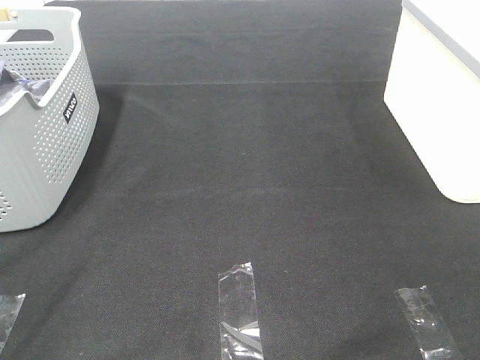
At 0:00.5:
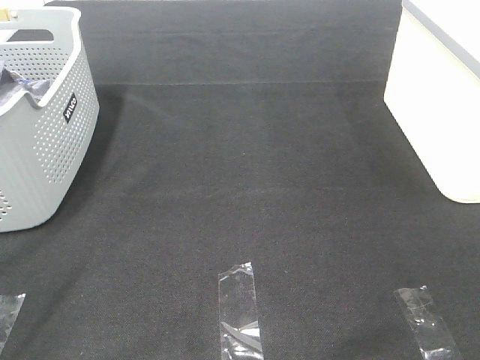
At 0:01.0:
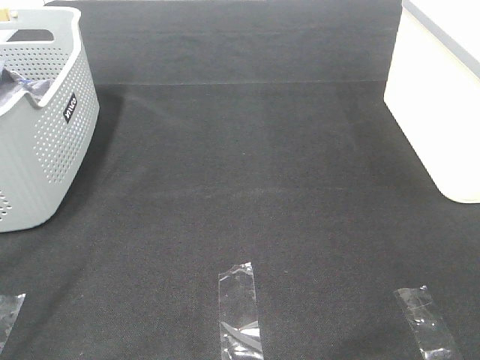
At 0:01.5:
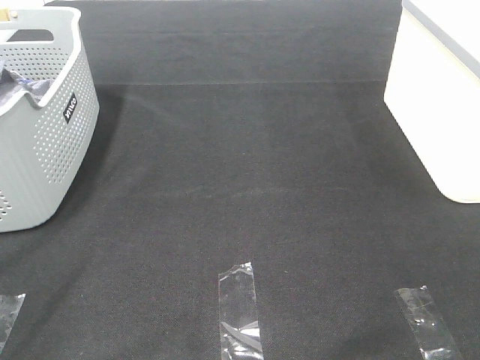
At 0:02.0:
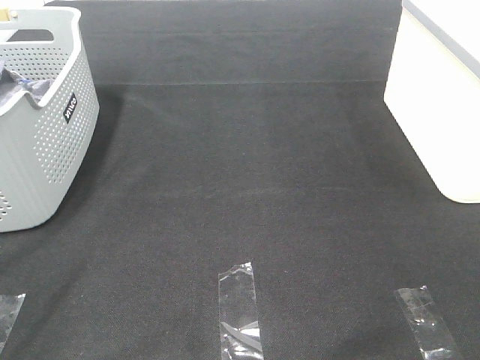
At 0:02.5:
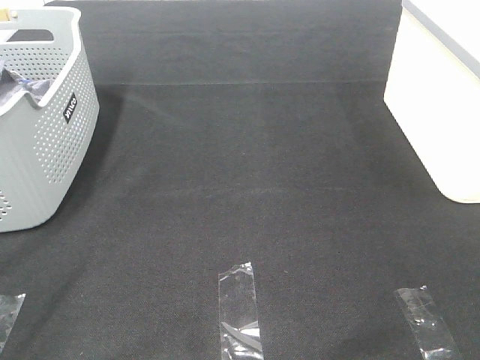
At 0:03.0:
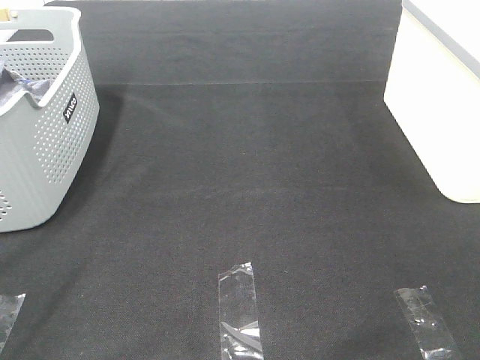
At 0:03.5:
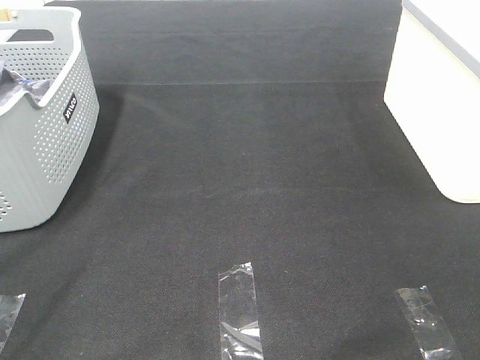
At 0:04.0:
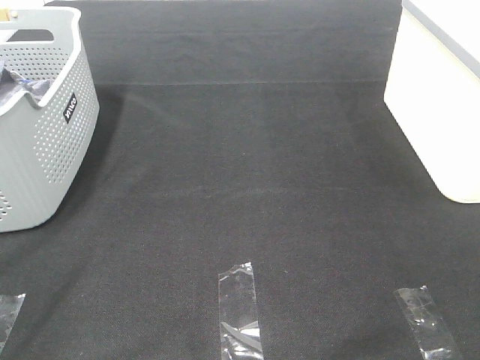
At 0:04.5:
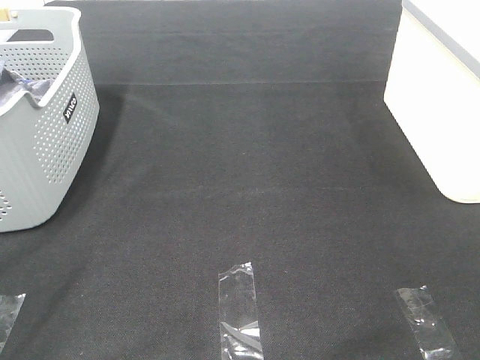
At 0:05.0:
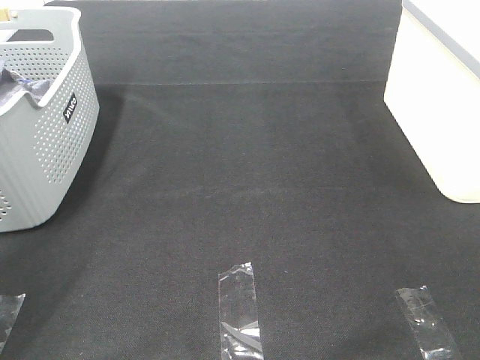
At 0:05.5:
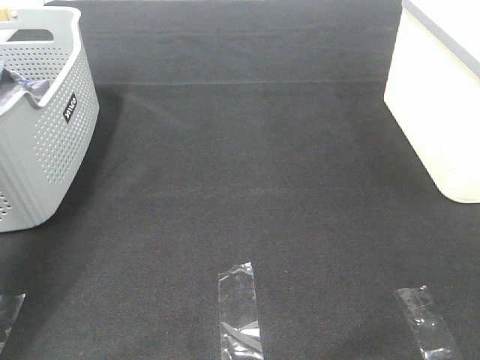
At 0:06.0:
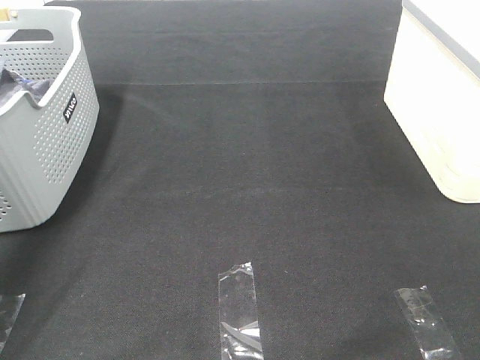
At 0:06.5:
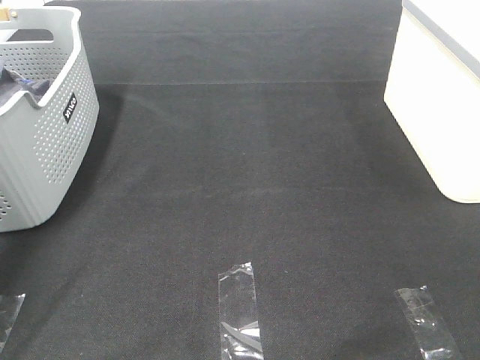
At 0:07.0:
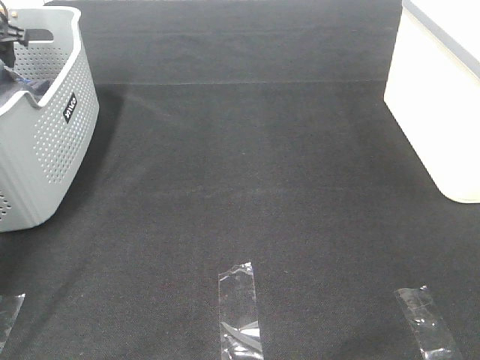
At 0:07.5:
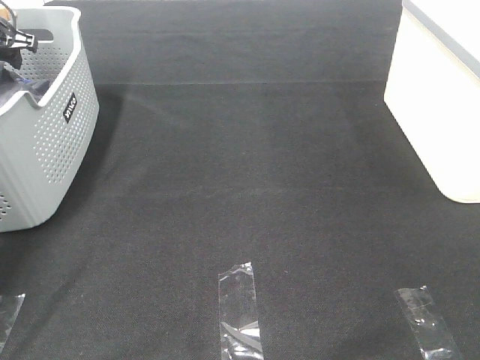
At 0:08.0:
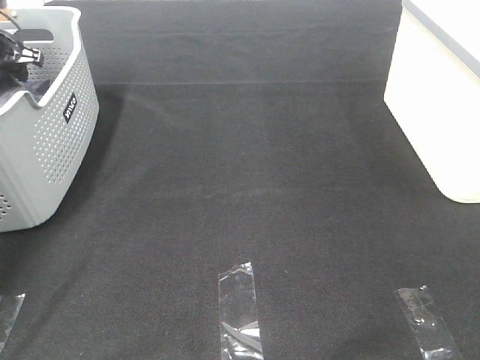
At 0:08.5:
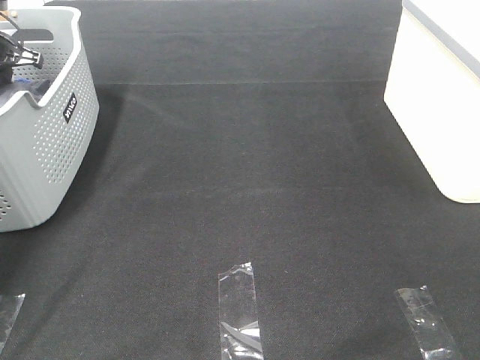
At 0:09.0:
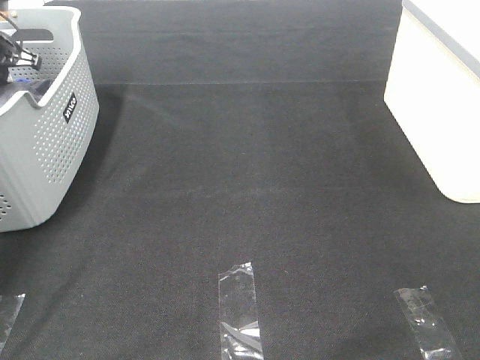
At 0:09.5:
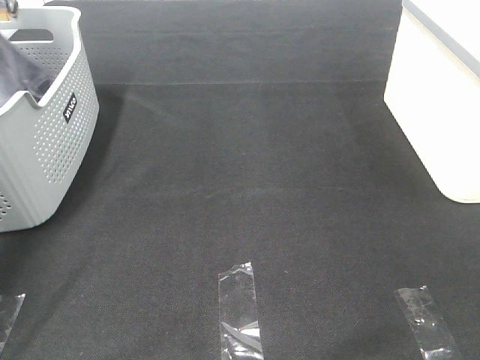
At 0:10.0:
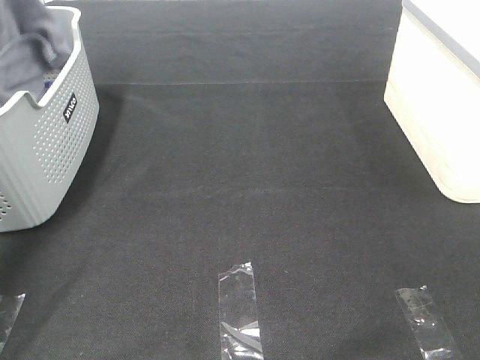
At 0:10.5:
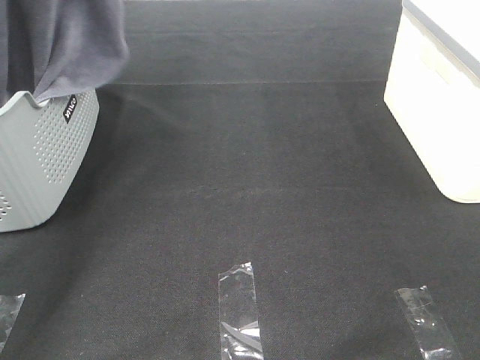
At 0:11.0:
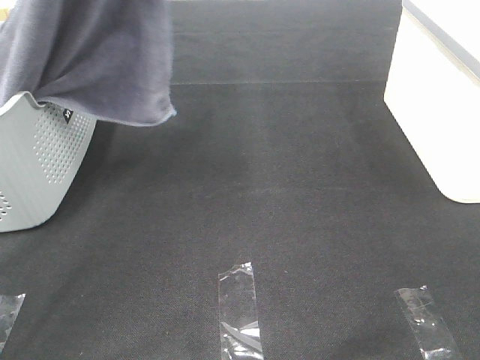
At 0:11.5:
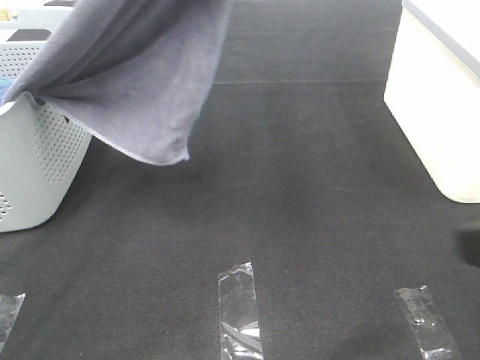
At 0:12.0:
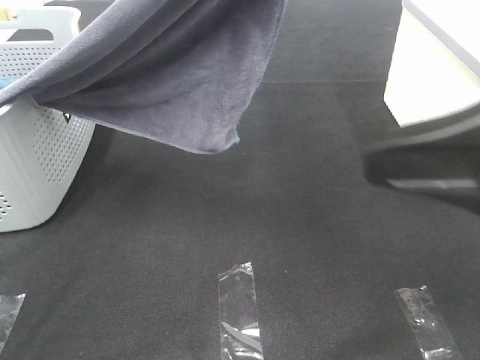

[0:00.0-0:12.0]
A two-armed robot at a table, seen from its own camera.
Task of the whole recording: Remove the towel and place it.
0:00.0 to 0:04.0: Both grippers stay about where they are.
0:04.0 to 0:06.0: The left gripper shifts some 40 cm forward.
0:06.0 to 0:08.0: The left gripper is displaced downward and forward by about 25 cm.
0:08.0 to 0:10.0: The left gripper moves upward, roughly 20 cm, and closes up.
0:10.0 to 0:12.0: The right gripper moves forward, roughly 15 cm. Meanwhile the left gripper shifts roughly 35 cm to the right and backward.

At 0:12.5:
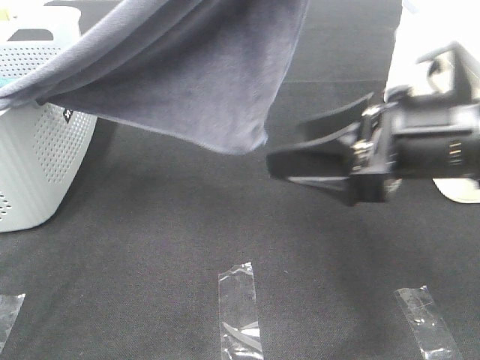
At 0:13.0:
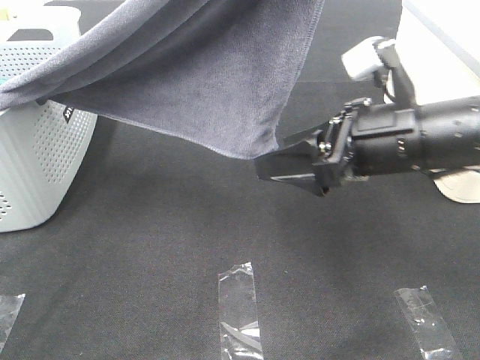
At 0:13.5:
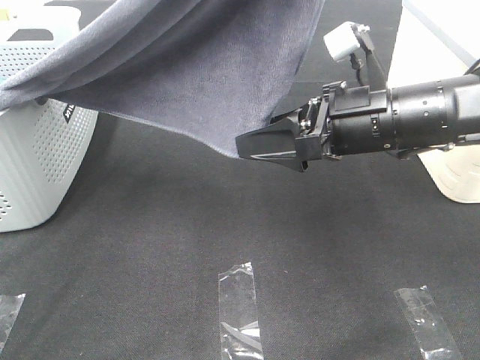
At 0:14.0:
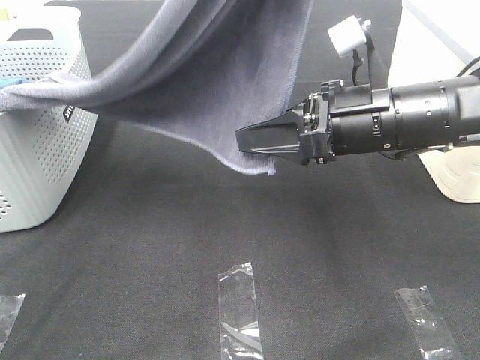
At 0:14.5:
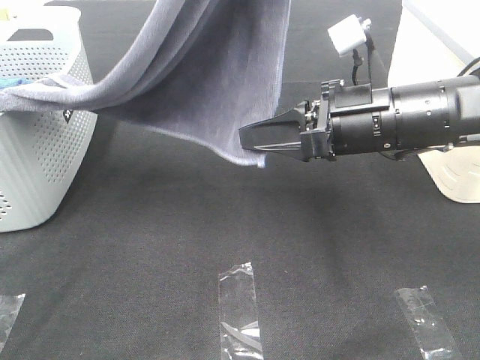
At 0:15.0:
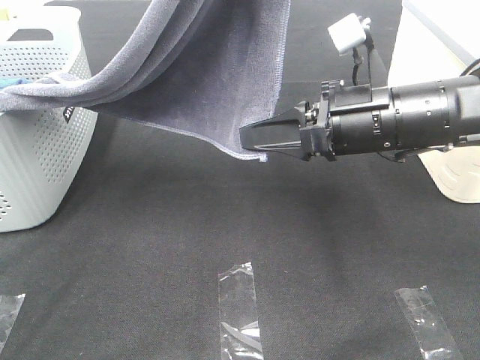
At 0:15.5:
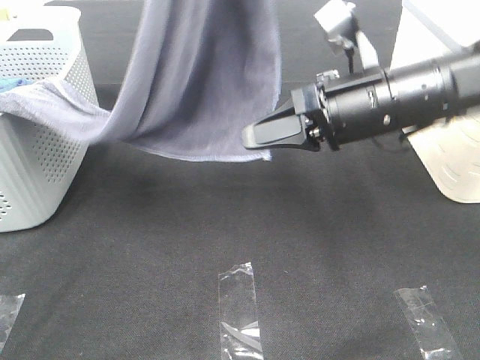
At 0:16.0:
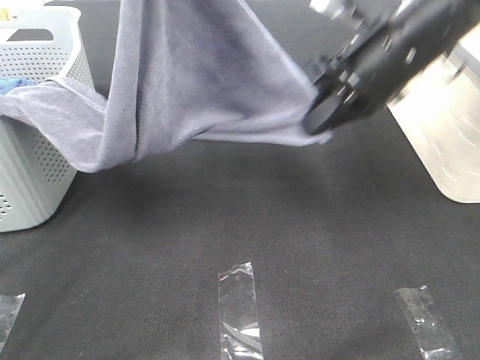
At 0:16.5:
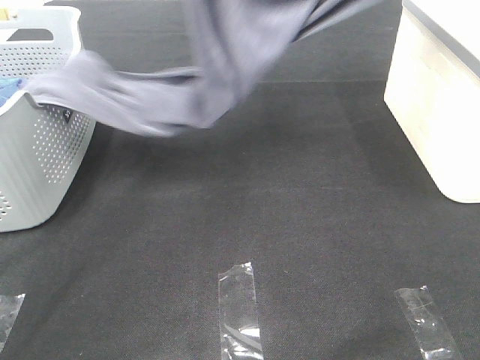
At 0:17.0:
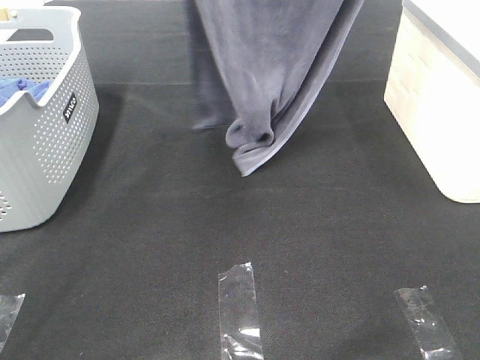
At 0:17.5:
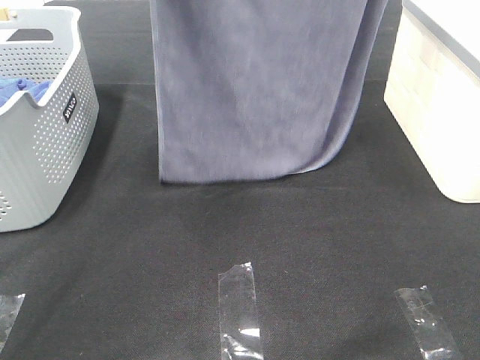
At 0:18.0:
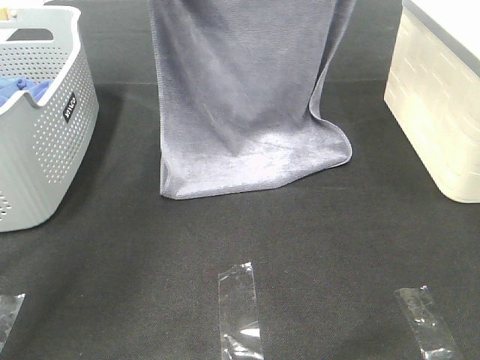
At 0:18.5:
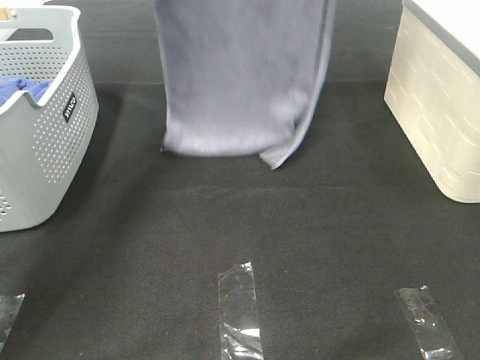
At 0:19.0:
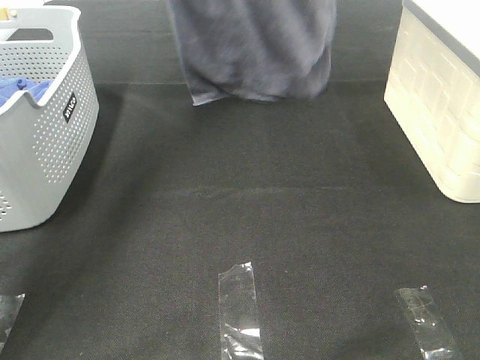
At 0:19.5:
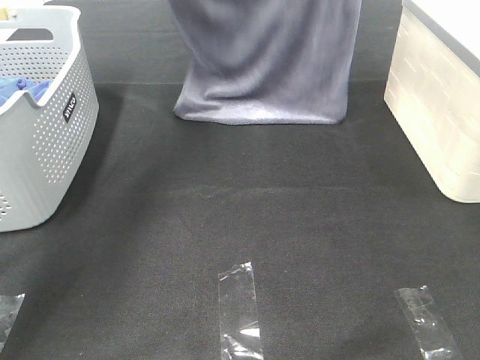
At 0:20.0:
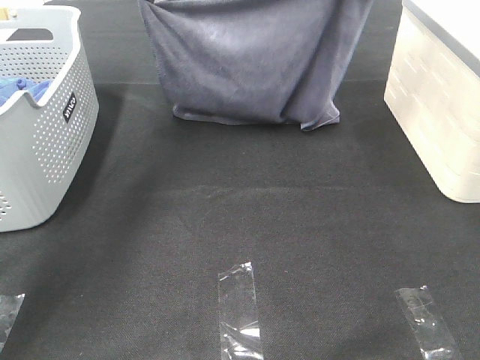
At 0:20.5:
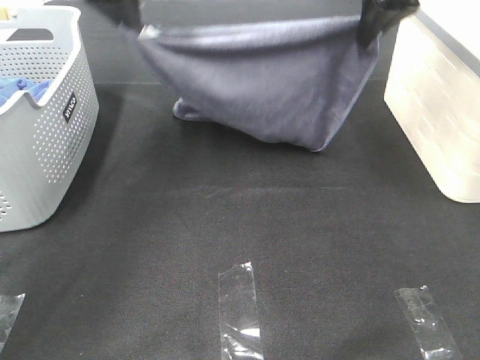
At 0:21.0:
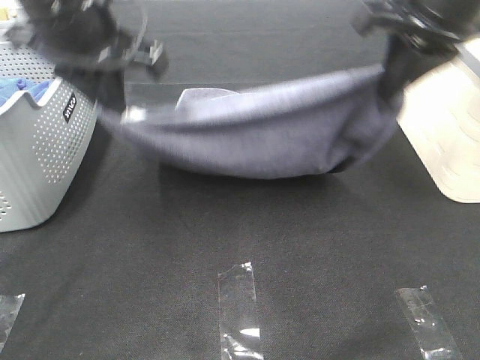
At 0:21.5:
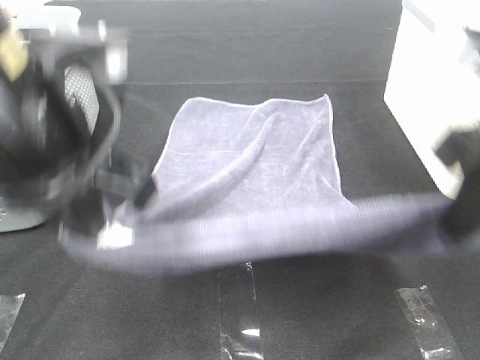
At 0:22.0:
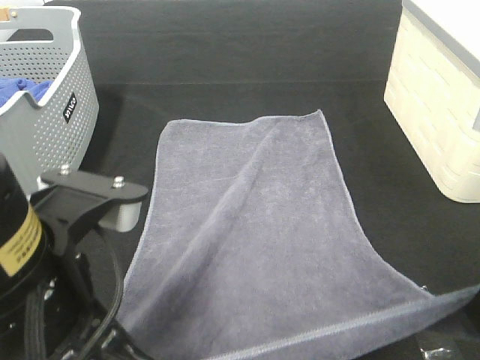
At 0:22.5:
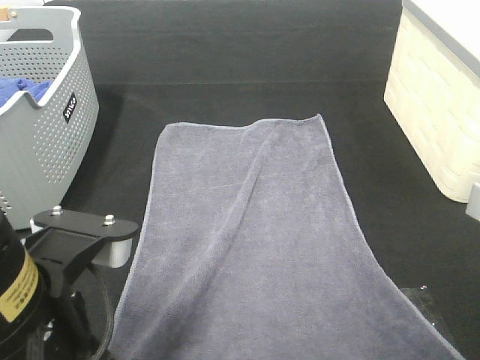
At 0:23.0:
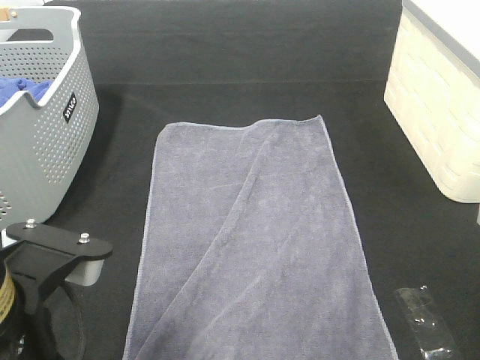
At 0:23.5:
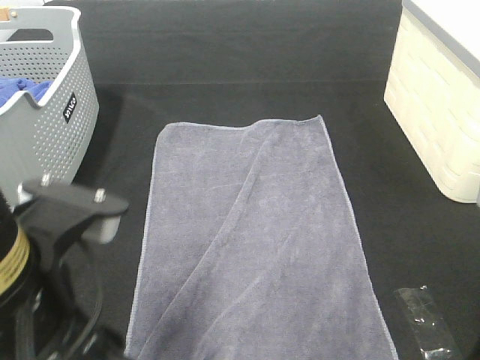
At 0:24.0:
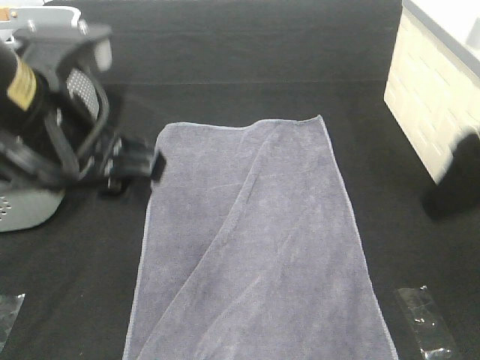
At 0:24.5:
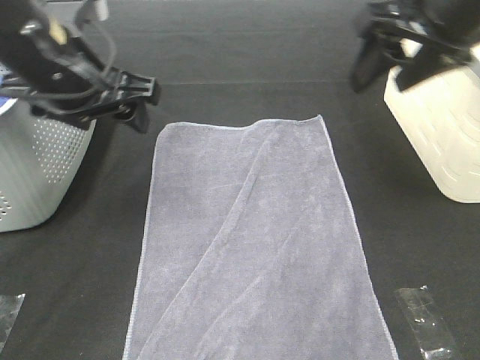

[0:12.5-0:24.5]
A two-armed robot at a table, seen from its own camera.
Task of the whole recording: Remove the towel and place it.
Step, 0:14.0 to 0:18.5: Left hand: spread the grey towel flat on the table.
Step, 0:14.0 to 0:18.5: Right hand: spread the grey towel flat on the table.
0:12.5 to 0:14.5: The right gripper travels forward by some 5 cm, and closes.
0:14.5 to 0:16.5: The right gripper shifts approximately 25 cm upward and forward. Meanwhile the left gripper is displaced forward by approximately 10 cm.
0:16.5 to 0:18.5: The right gripper moves up and down over about 15 cm, changing direction 2 times. Meanwhile the left gripper moves up and down over some 15 cm, changing direction 2 times.
0:18.5 to 0:20.5: Both grippers move downward and backward, approximately 15 cm.
0:20.5 to 0:22.5: The grippers both shift backward by approximately 30 cm.
0:22.5 to 0:24.5: The right gripper travels forward and upward by roughly 25 cm, and opens its fingers. The left gripper shifts roughly 20 cm forward, and opens its fingers.

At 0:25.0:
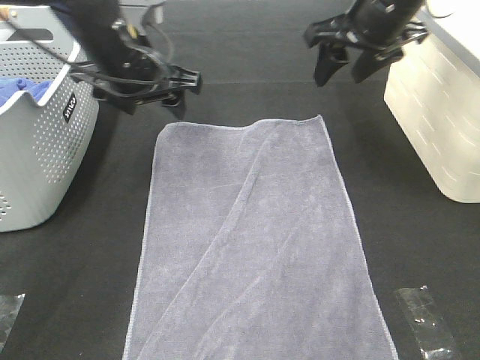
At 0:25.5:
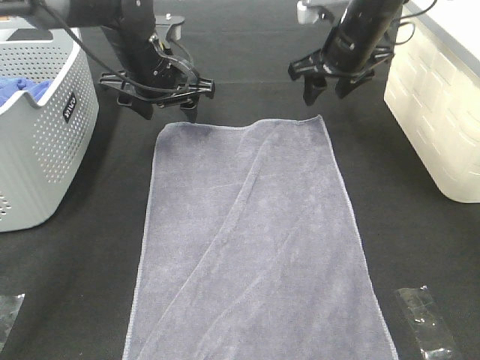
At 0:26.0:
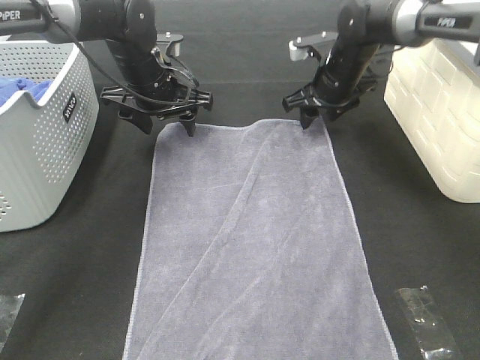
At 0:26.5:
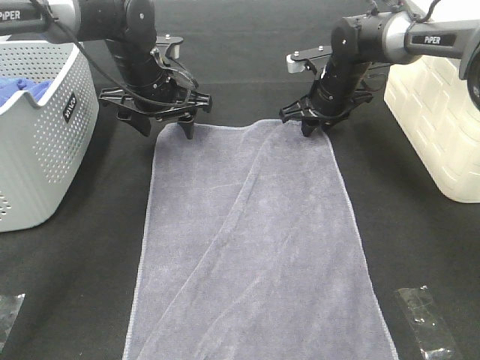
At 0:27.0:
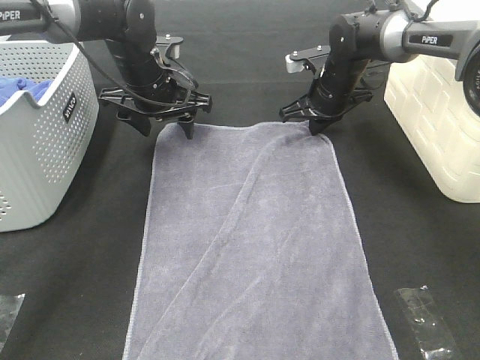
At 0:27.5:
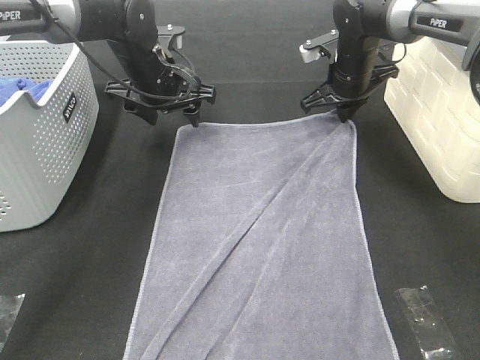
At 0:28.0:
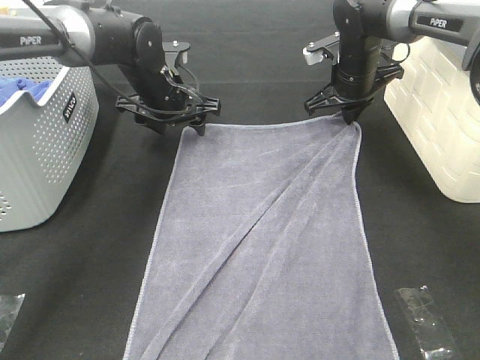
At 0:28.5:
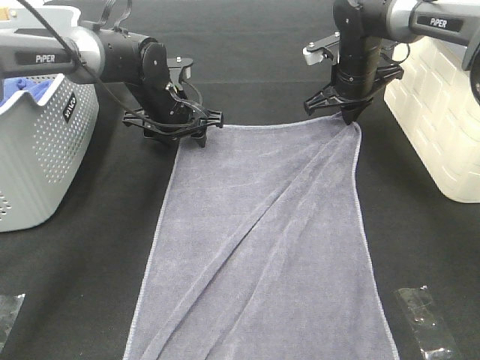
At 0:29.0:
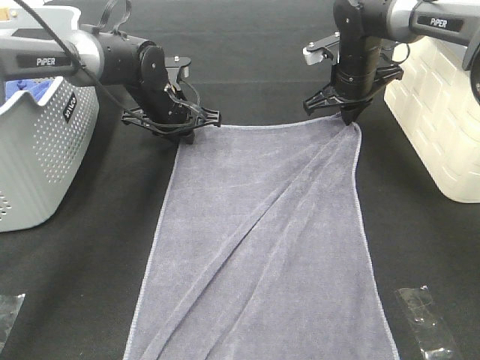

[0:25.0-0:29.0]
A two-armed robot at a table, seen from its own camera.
Task of the whole recording: Remove the towel and place it.
0:25.0 to 0:27.0: The left gripper goes roughly 10 cm downward and forward; the right gripper heads downward and forward, covering some 15 cm, and closes its fingers.
0:27.0 to 0:29.0: The left gripper travels downward by about 5 cm, and closes.
